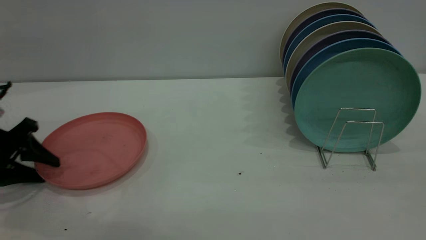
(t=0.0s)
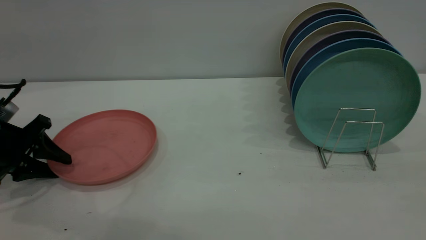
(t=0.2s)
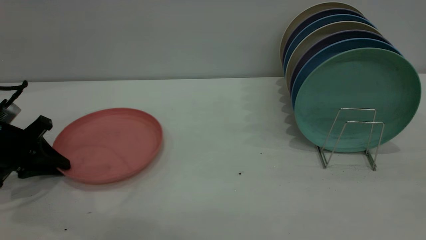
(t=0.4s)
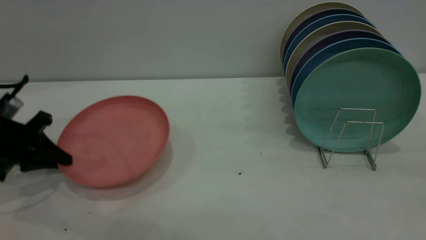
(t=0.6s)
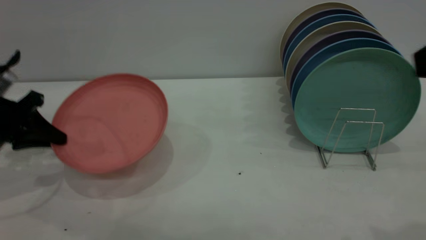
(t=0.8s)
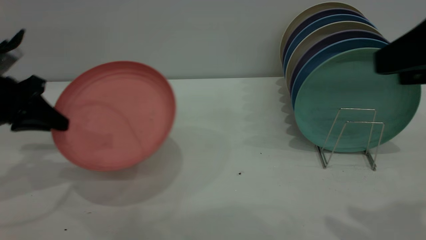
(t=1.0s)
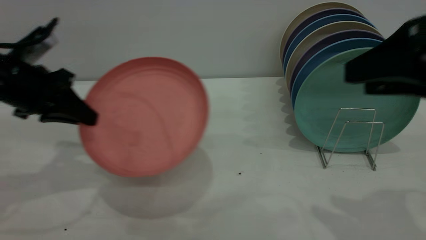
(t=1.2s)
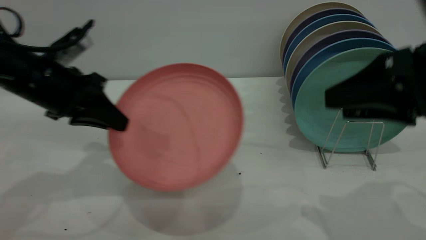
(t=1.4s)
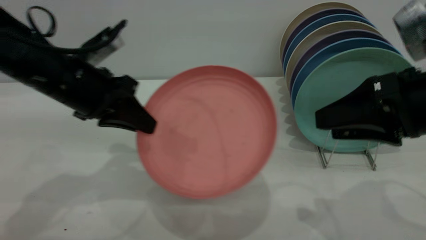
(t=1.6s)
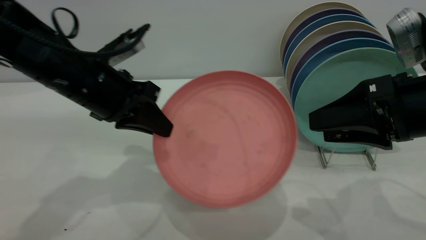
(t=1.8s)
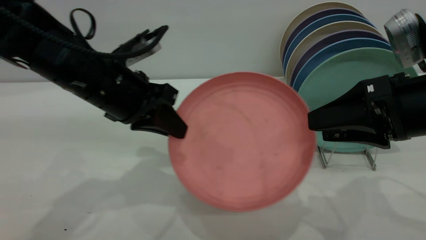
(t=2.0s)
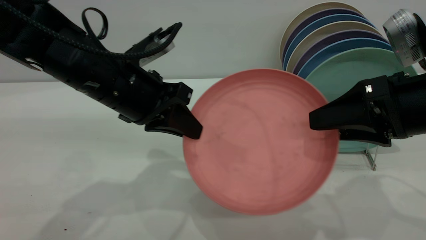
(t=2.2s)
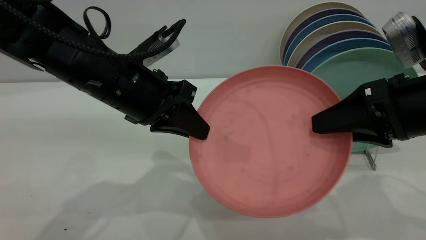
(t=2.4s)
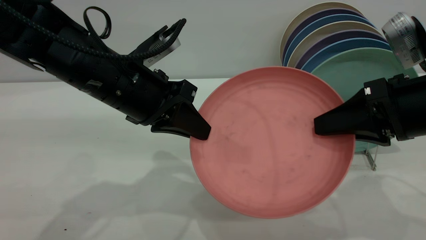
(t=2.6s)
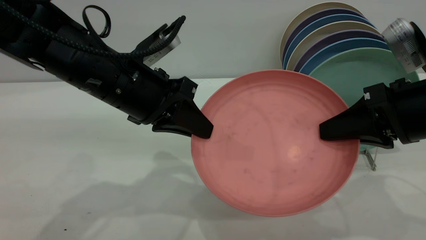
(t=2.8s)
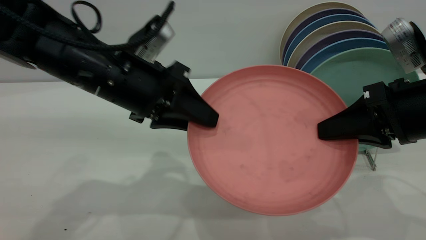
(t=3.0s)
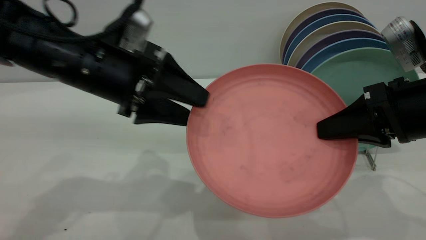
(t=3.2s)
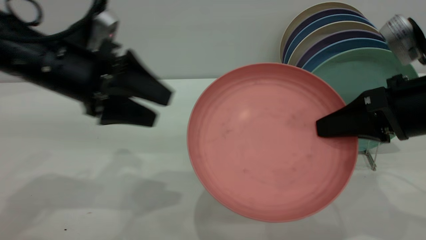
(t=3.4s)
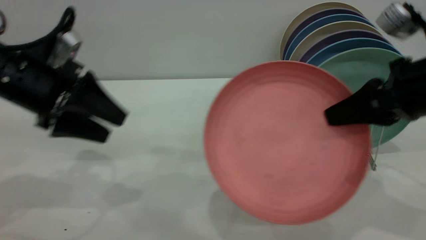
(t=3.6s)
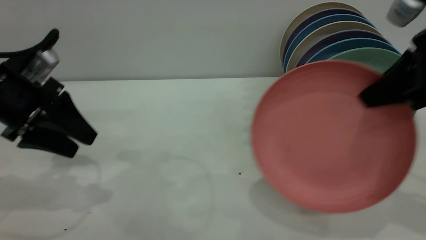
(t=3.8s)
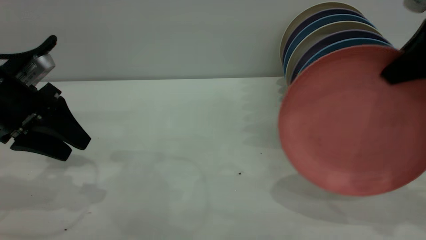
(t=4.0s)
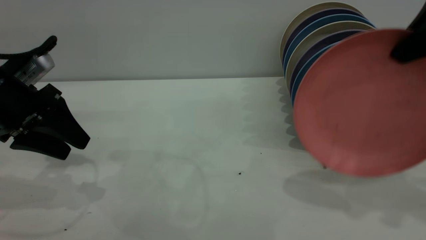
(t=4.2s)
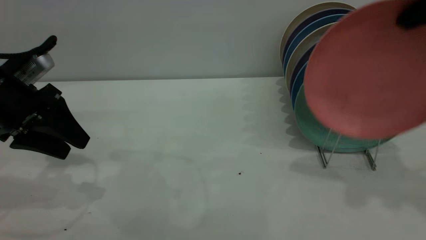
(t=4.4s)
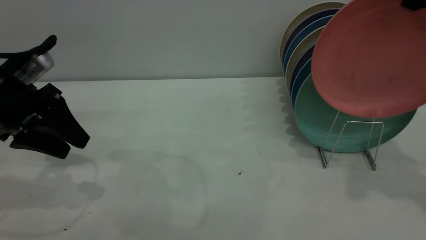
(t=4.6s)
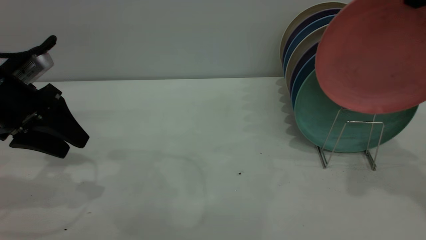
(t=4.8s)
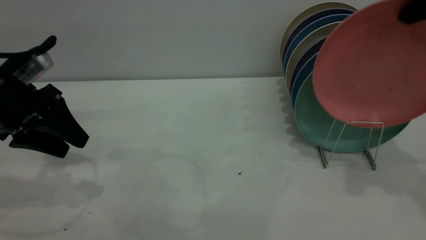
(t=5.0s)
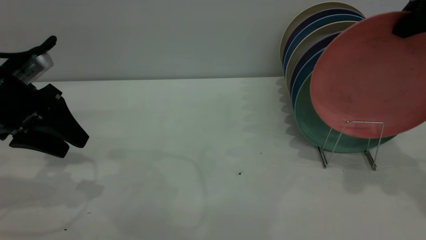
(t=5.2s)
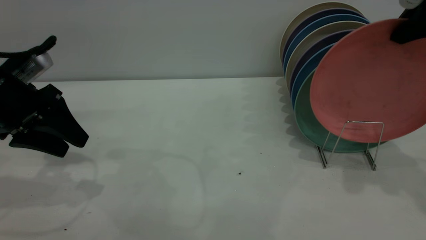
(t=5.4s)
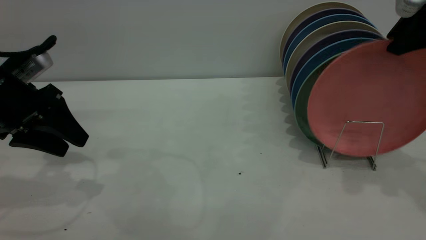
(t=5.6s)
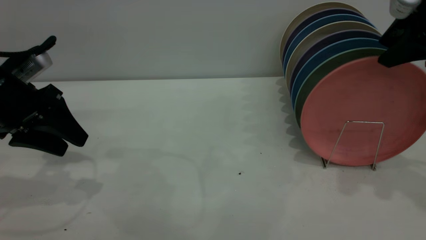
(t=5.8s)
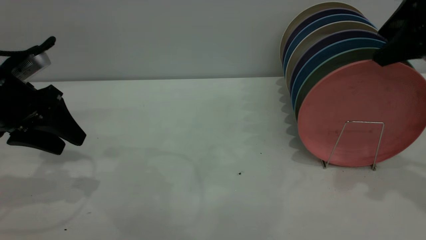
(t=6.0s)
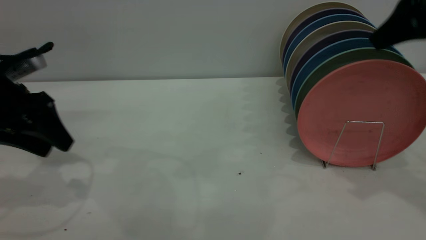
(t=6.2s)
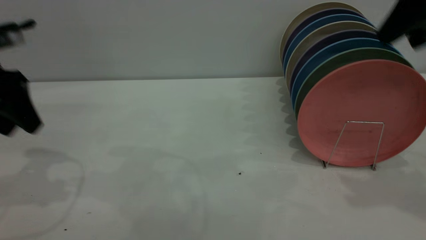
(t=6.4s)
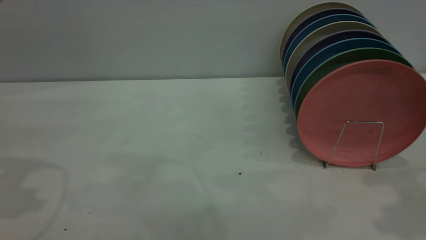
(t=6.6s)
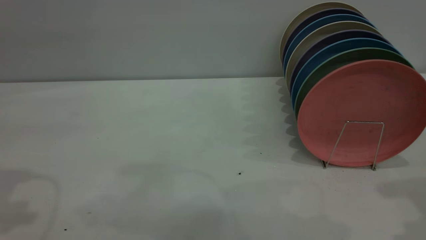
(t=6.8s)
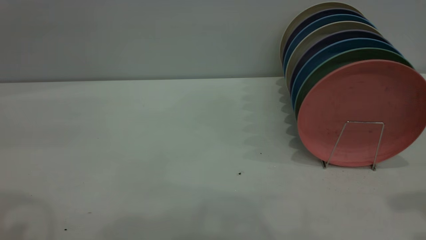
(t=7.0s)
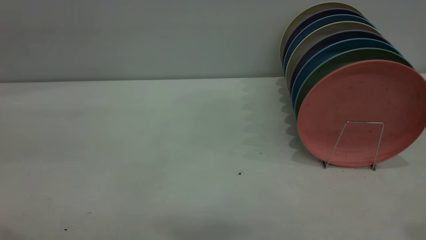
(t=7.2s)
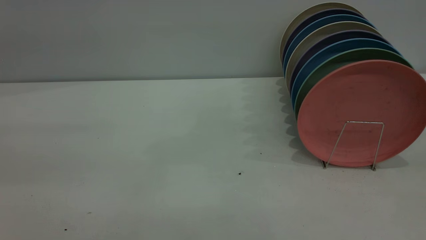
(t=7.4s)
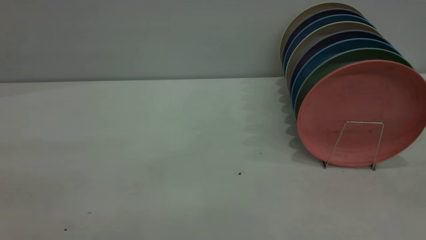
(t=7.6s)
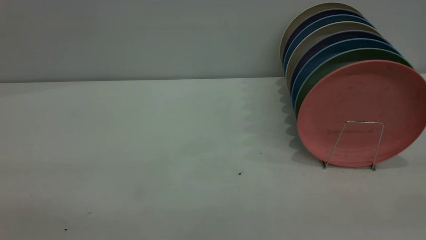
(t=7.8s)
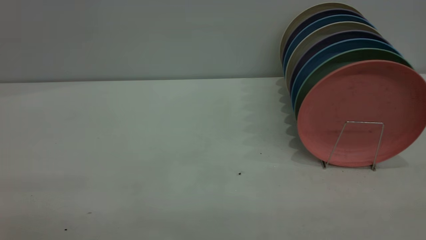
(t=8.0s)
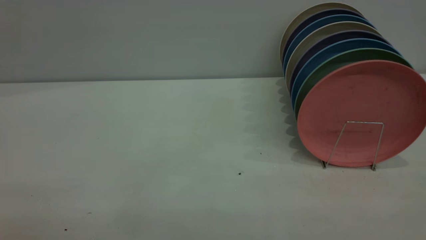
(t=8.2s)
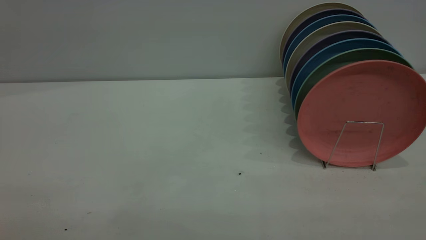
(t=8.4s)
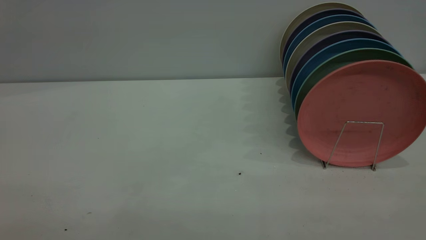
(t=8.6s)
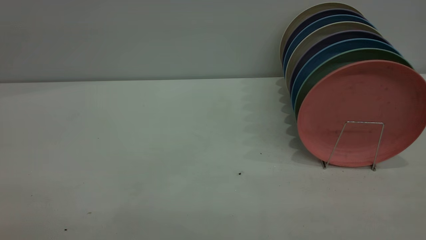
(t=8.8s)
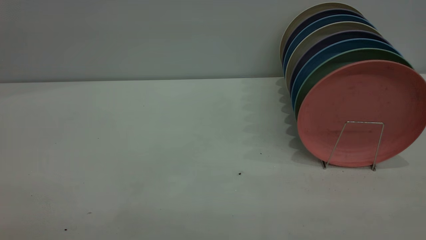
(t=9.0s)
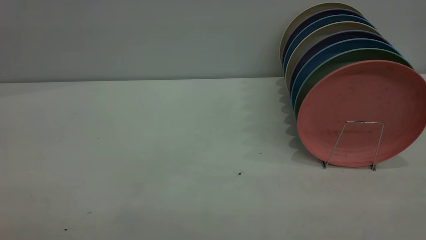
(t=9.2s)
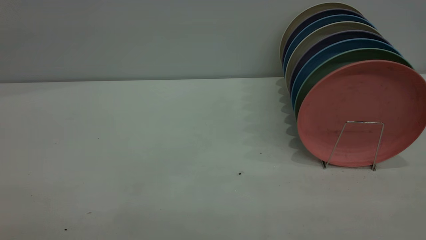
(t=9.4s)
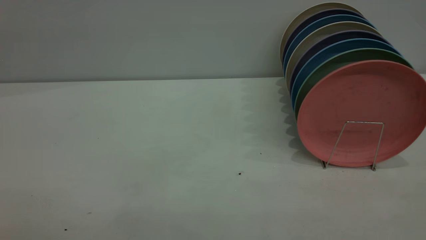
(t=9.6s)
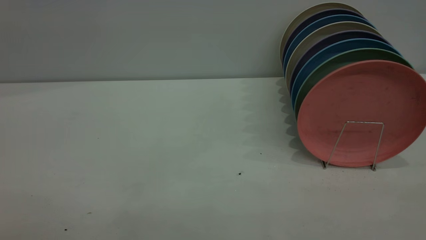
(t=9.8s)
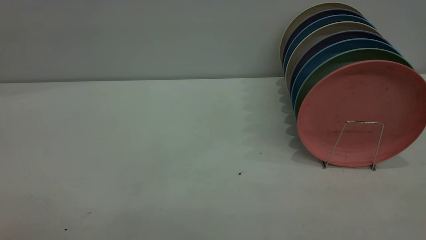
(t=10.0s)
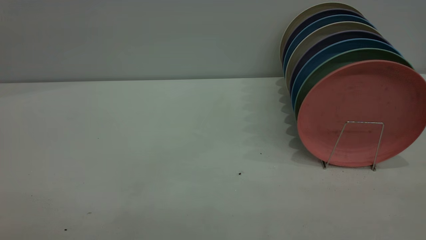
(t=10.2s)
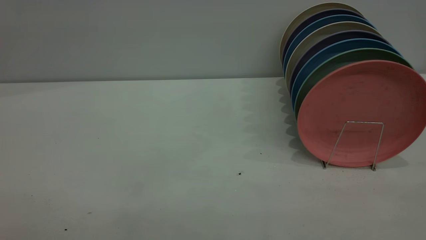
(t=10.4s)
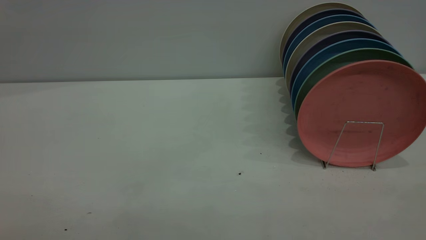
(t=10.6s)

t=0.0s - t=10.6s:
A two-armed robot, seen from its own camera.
Task of the whole recording: the left gripper grasp the pink plate, the left gripper pass the pink plate to the right gripper, and the right gripper place the pink plate on the plate rack.
Step, t=0.8s - t=3.4s: Pass the plate from the left gripper to the right gripper.
Step, t=3.6s - t=6.4s: Place the plate on the shelf.
t=0.0s - t=1.6s: The left gripper shifts about 20 cm to the right and upward, and closes its fingers. Meanwhile the right gripper travels downward and forward by about 20 cm.
t=1.6s - t=3.0s: The right gripper closes, while the left gripper moves to the right, approximately 5 cm, and opens.
t=3.0s - t=4.6s: The right gripper heads upward, covering approximately 15 cm. The left gripper moves to the left, about 15 cm.
t=4.6s - t=6.0s: The right gripper shifts by some 5 cm, and opens.
t=6.0s - t=7.6s: The left gripper goes approximately 30 cm backward and upward; the right gripper heads backward, covering some 30 cm.
